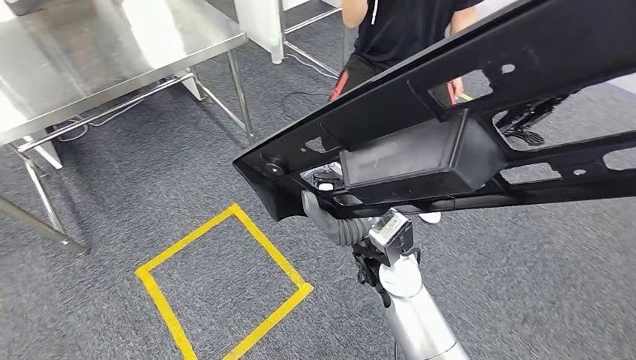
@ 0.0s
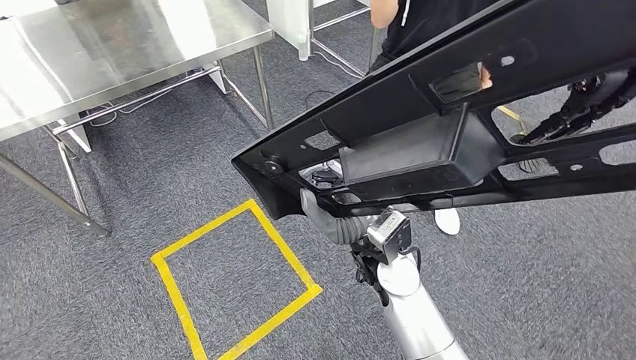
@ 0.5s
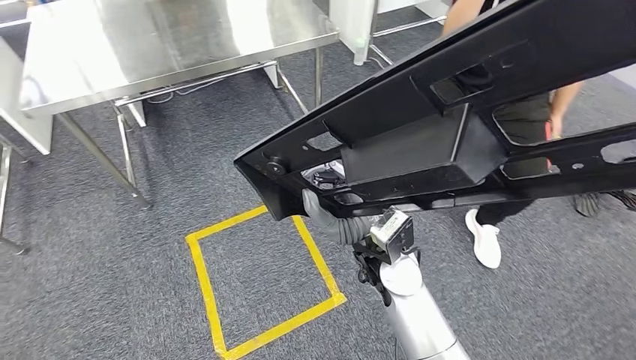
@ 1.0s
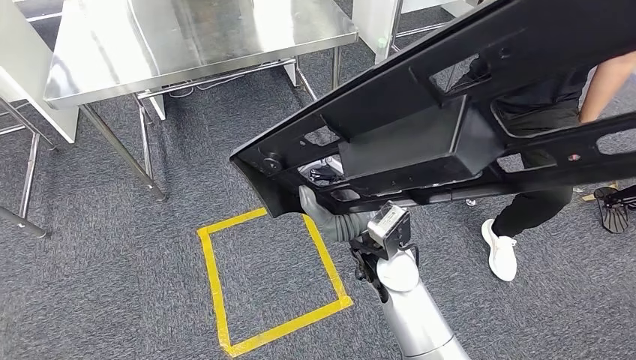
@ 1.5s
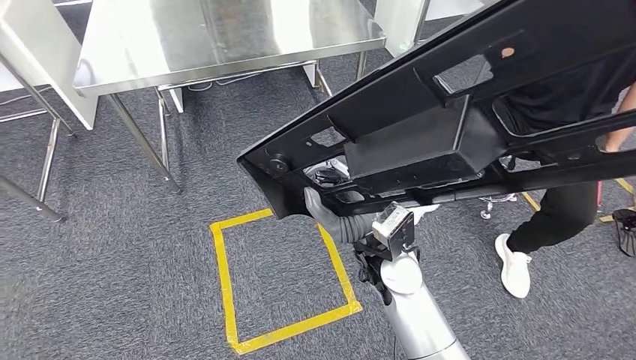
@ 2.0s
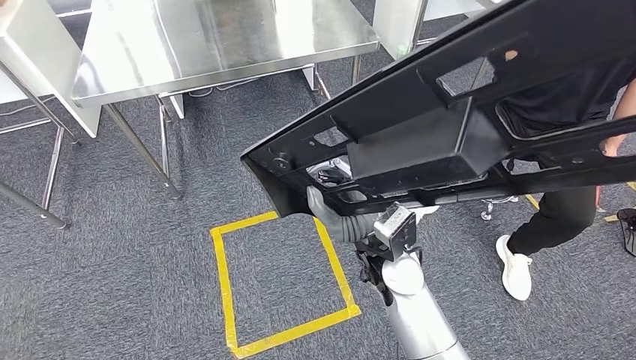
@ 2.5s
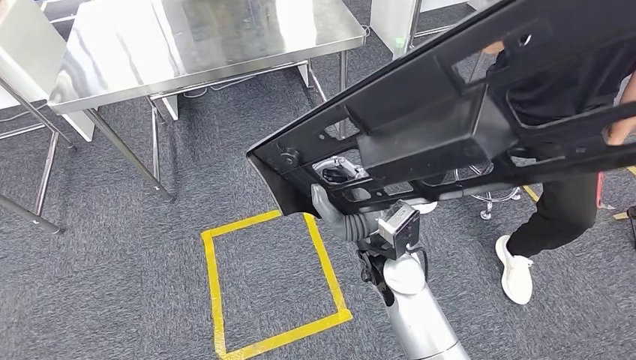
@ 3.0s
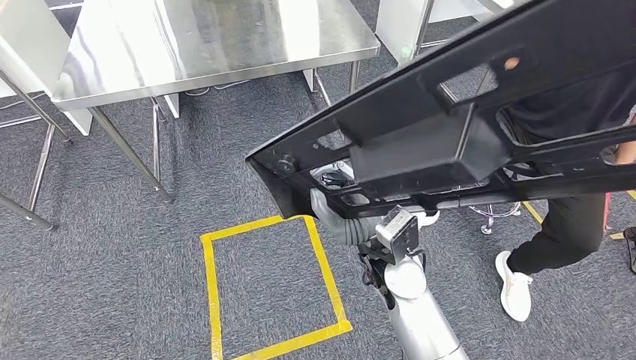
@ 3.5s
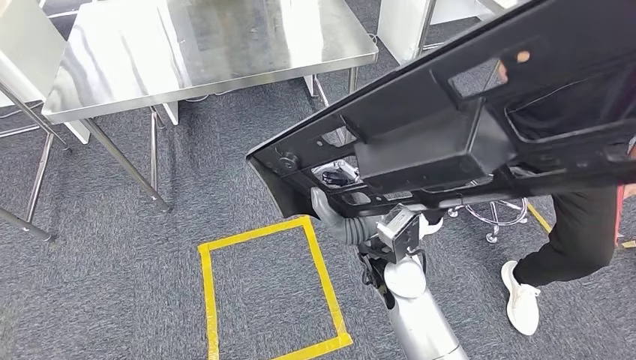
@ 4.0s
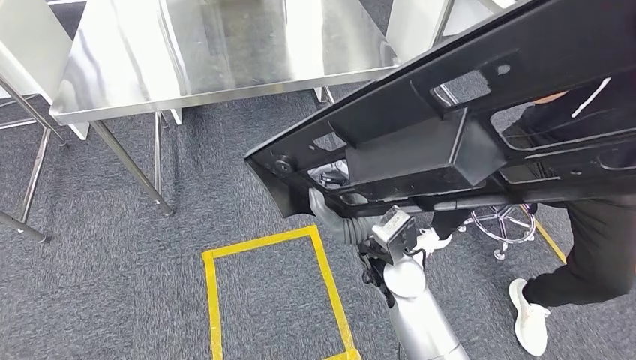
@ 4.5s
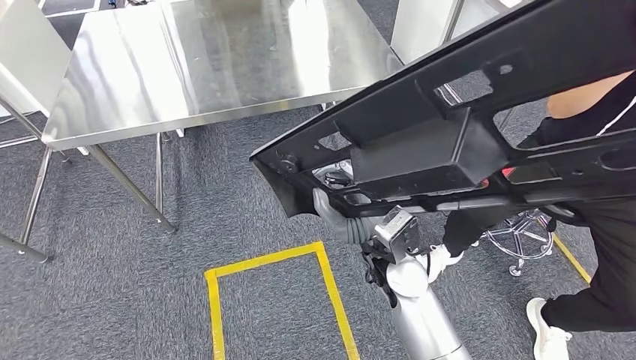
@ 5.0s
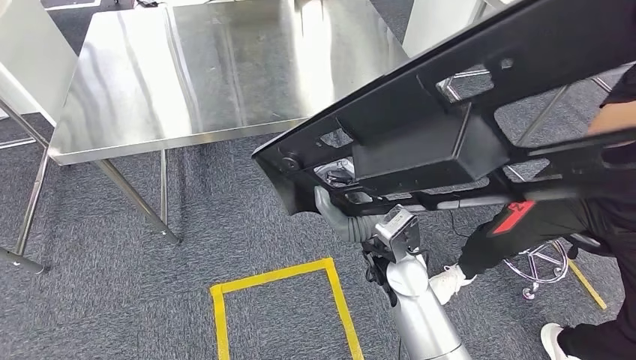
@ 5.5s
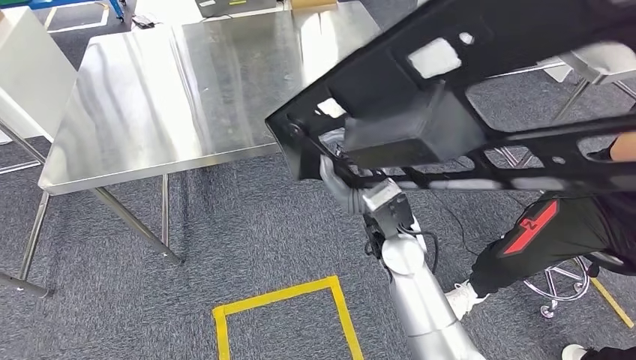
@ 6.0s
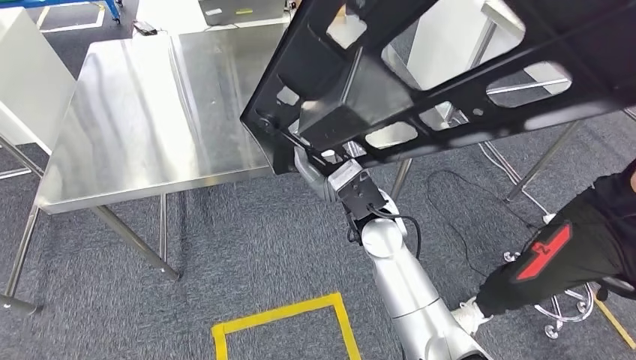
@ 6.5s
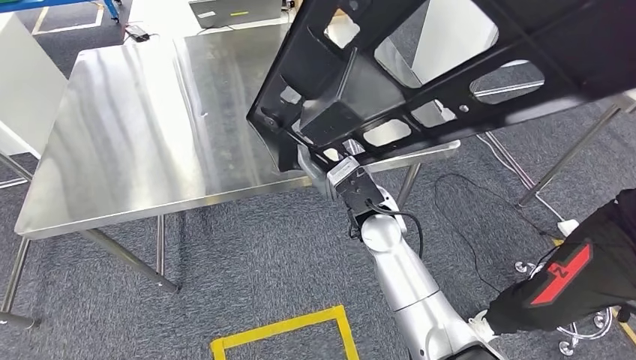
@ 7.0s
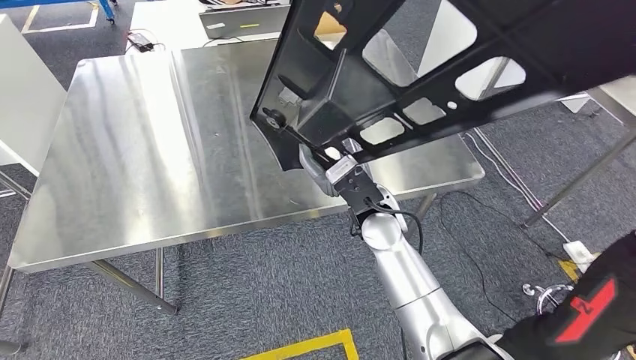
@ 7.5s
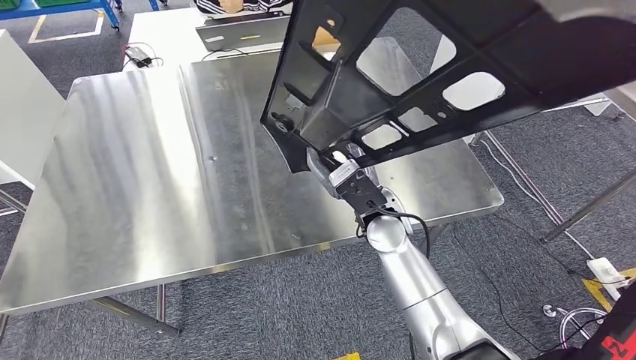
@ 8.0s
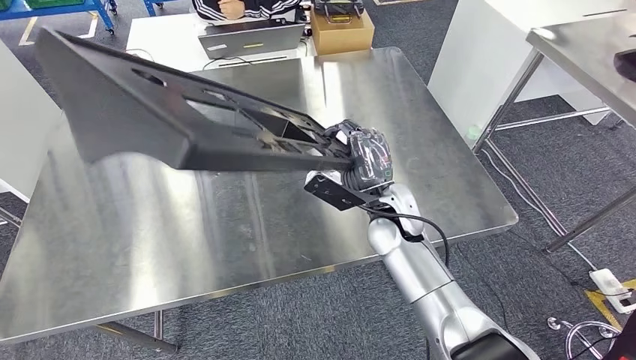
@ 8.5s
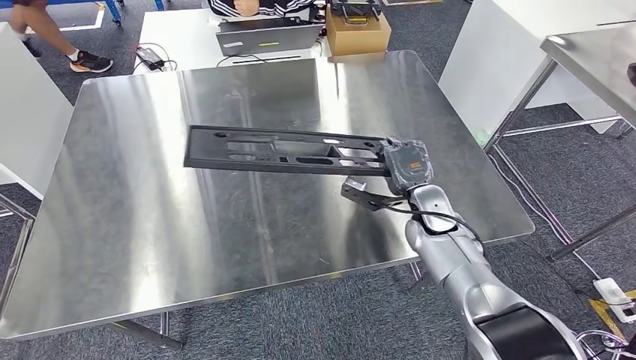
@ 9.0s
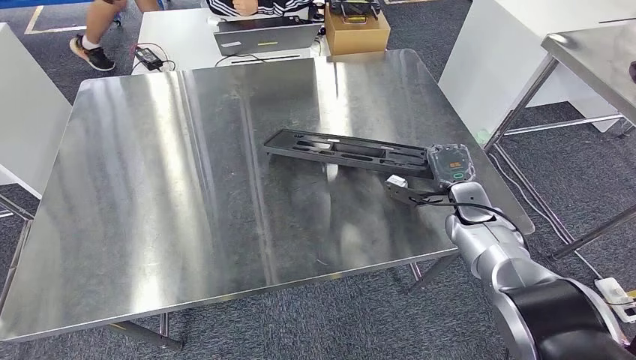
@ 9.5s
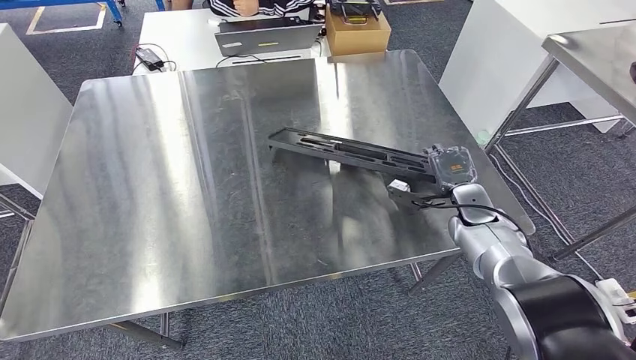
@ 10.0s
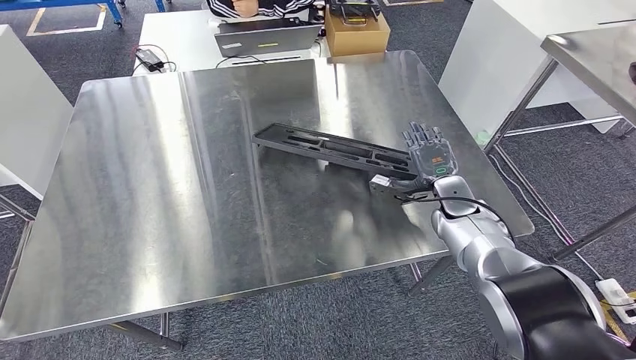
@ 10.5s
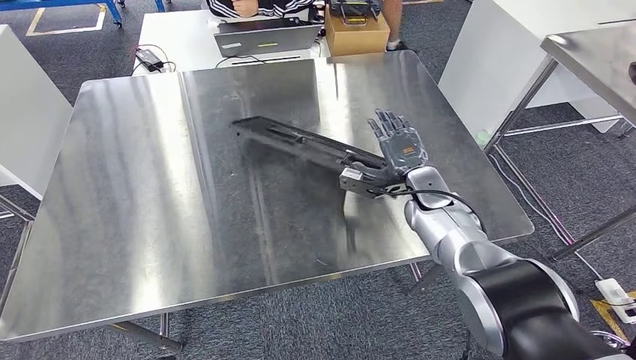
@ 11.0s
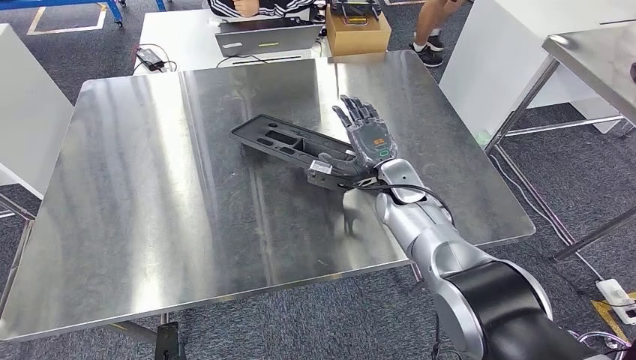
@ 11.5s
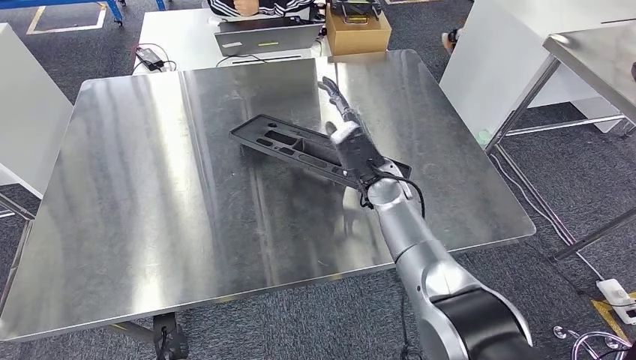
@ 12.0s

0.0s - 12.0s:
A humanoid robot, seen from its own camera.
Step, 0.0s - 6.5s: Move the large material to the workbench.
10.0s - 12.0s: The left hand goes some 20 cm forward. Meanwhile the right hand goes about 20 cm to the left.

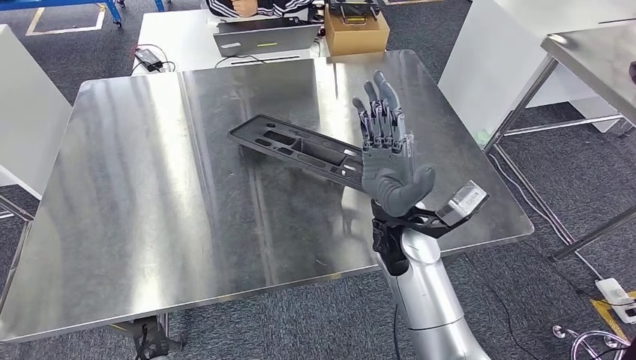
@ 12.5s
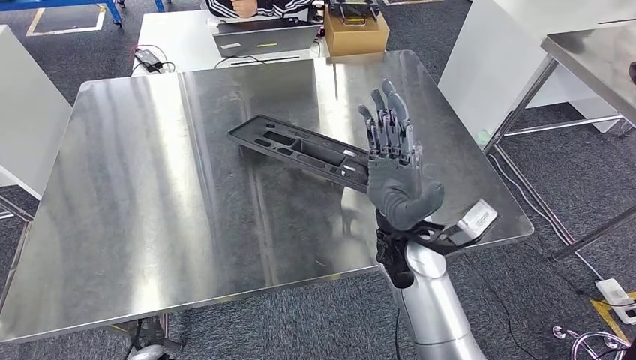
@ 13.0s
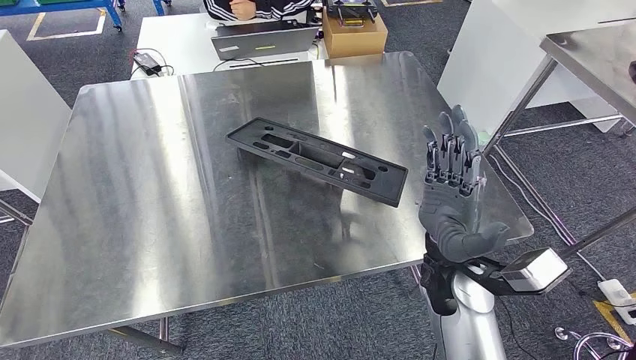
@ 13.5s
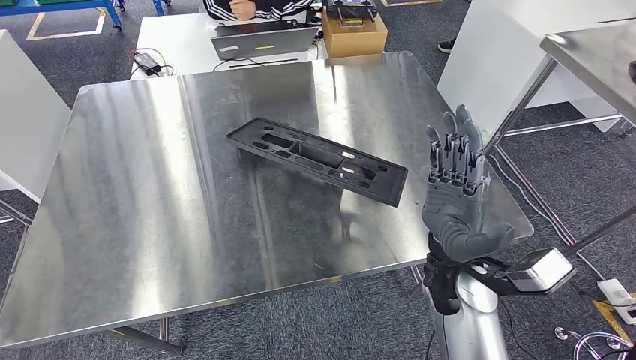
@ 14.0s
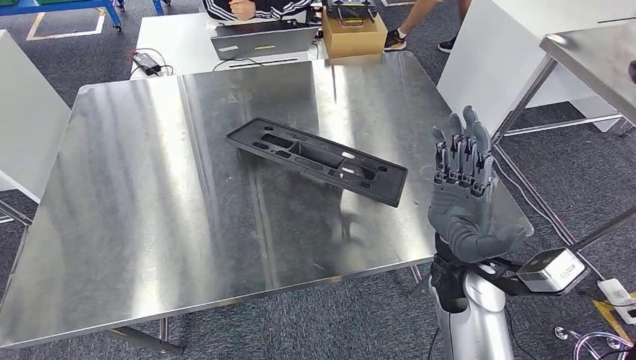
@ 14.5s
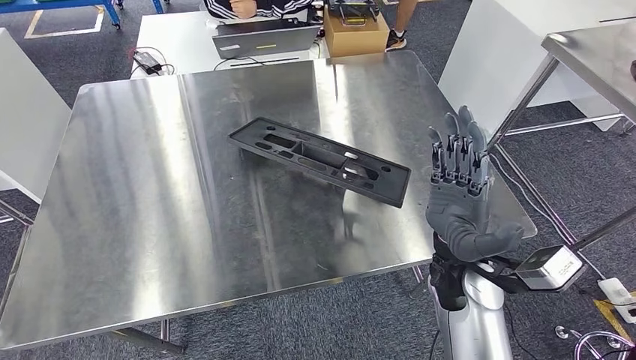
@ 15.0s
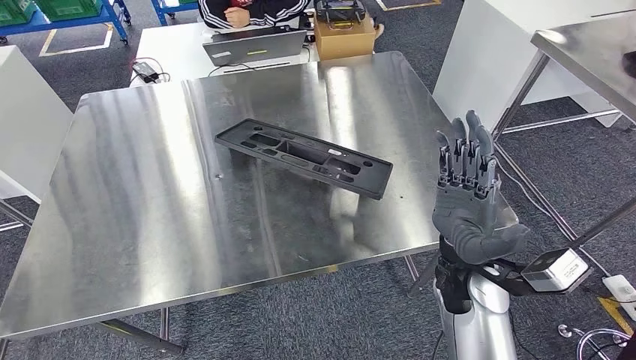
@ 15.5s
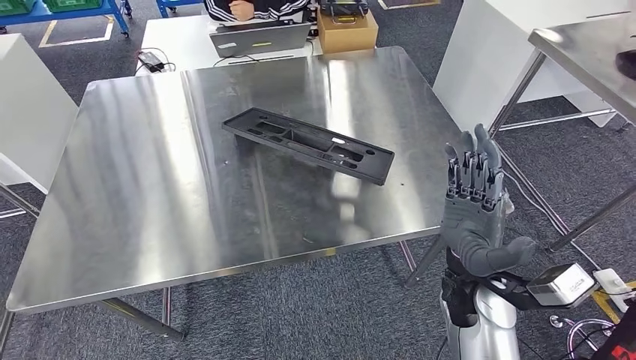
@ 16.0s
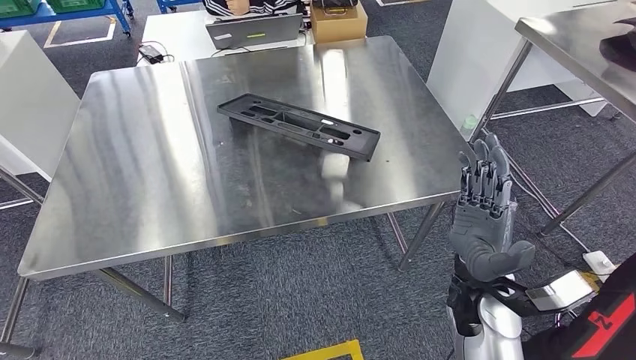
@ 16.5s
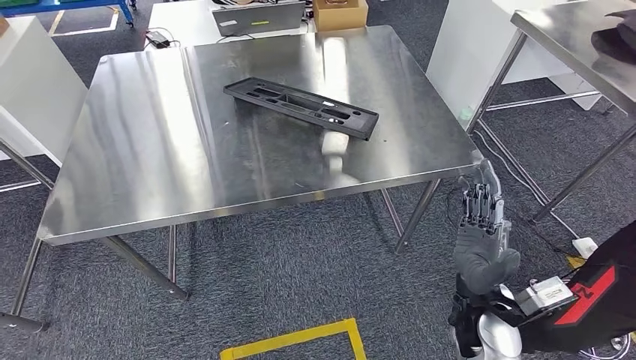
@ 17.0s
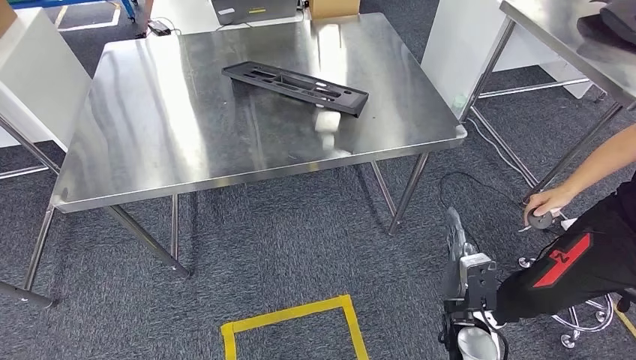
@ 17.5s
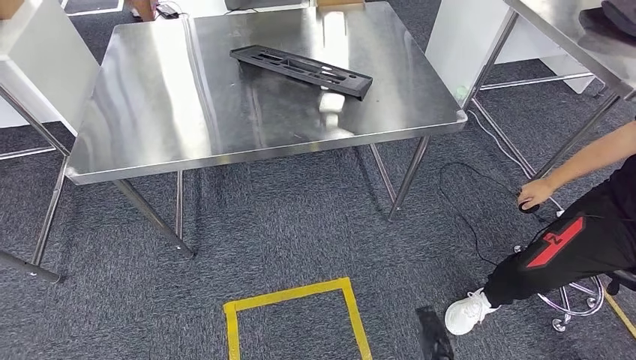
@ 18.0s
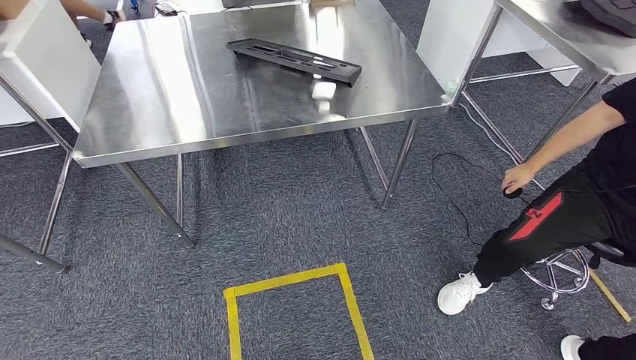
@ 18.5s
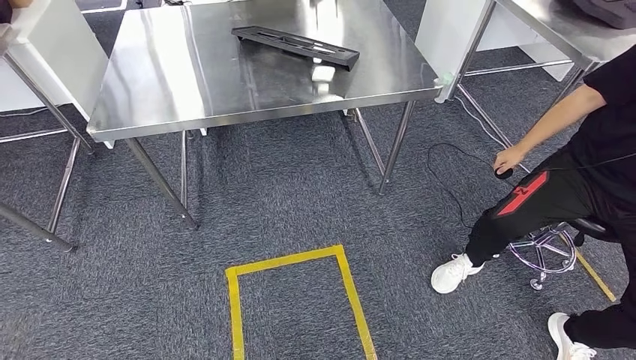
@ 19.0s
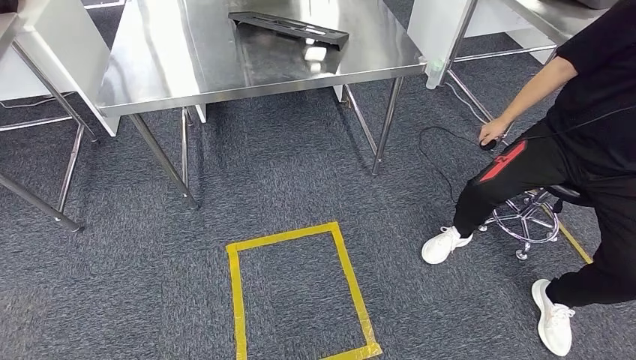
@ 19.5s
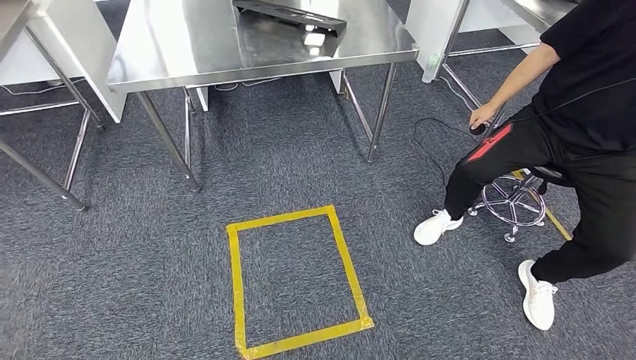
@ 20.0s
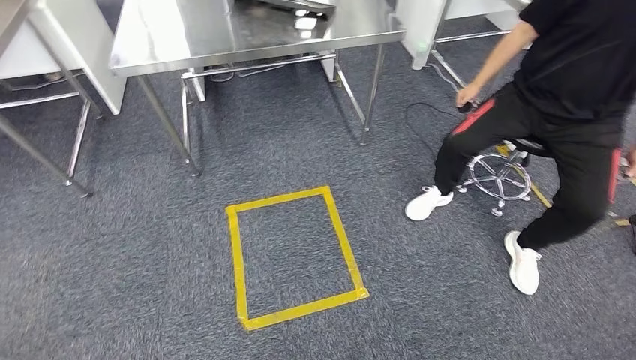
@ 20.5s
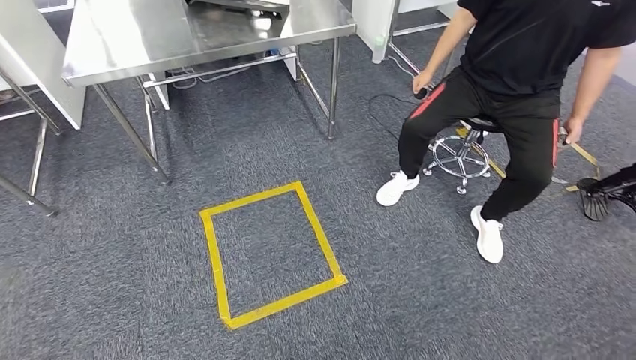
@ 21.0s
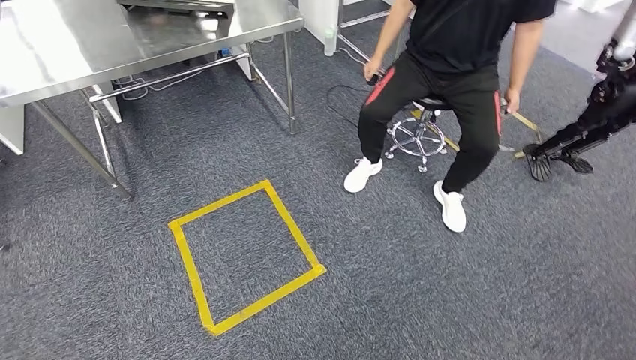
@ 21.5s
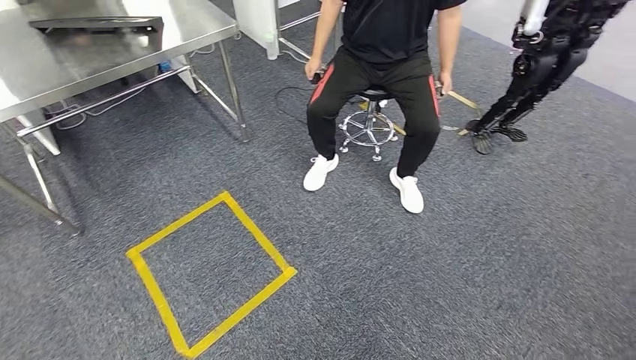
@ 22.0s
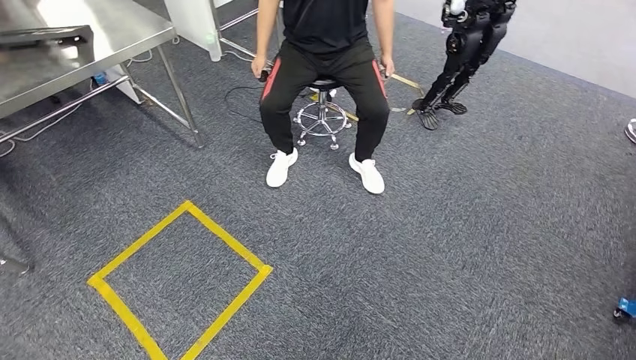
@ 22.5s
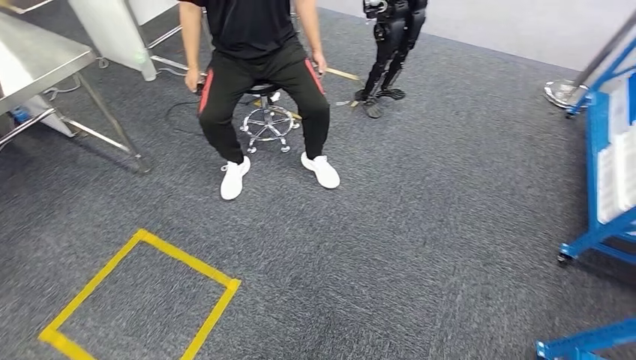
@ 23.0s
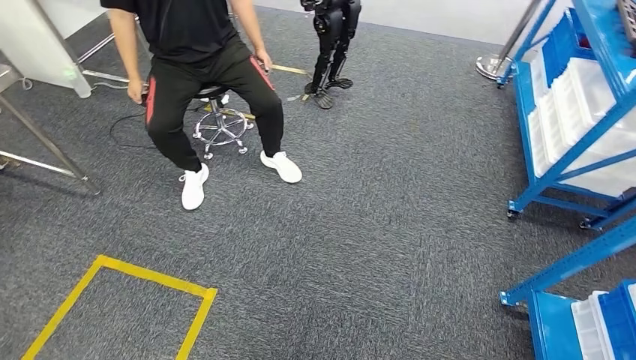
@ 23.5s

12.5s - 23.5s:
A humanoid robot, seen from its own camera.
Step, 12.5s - 19.0s: Insert the large material into the corresponding slot on the workbench.
